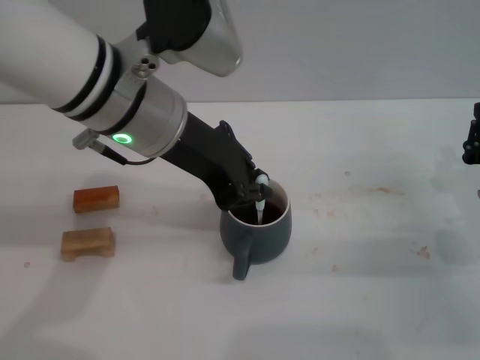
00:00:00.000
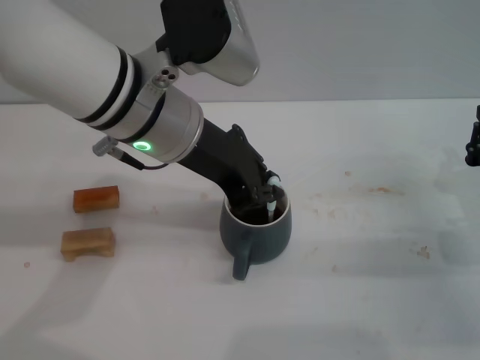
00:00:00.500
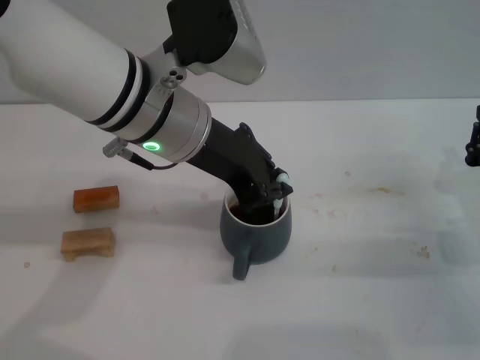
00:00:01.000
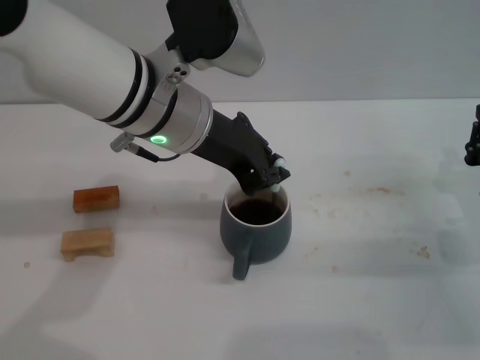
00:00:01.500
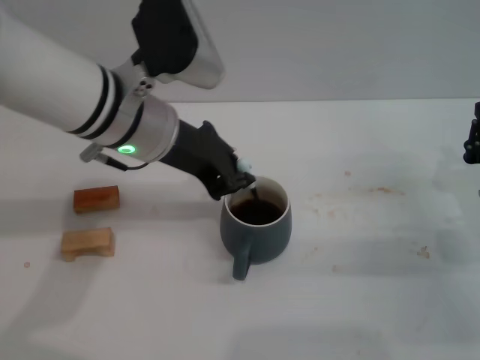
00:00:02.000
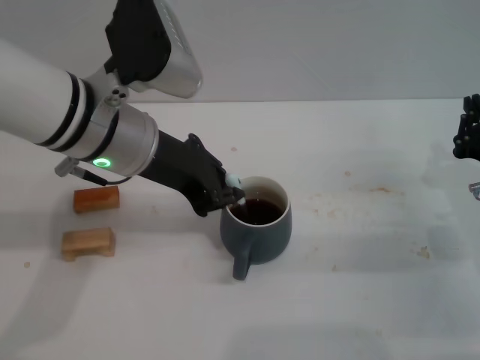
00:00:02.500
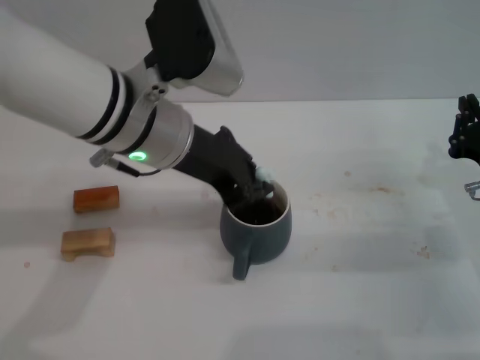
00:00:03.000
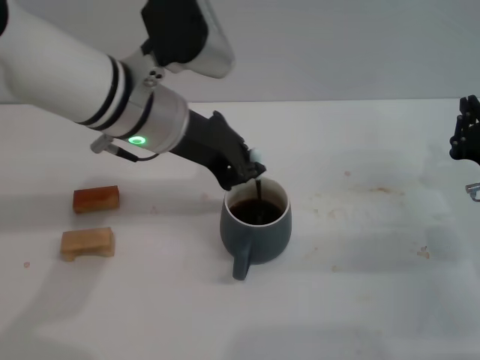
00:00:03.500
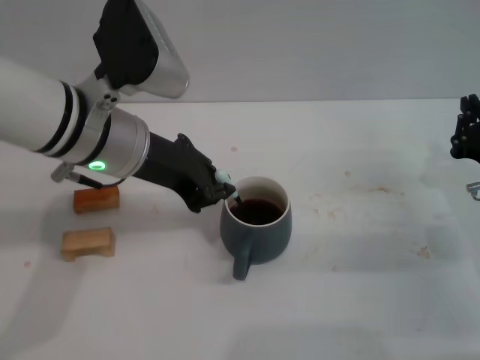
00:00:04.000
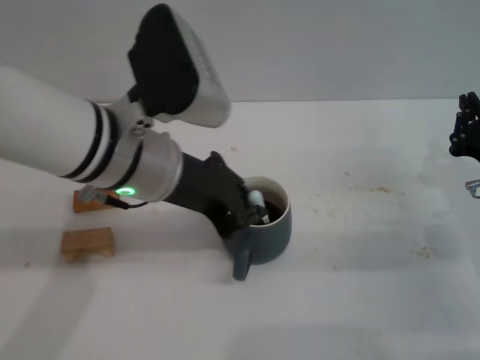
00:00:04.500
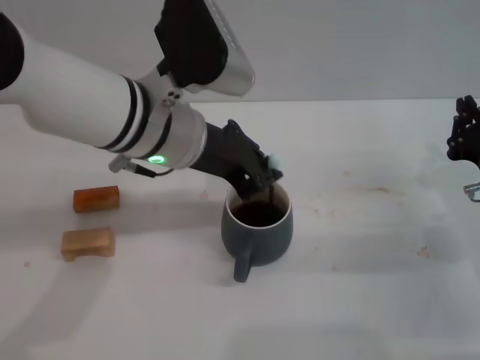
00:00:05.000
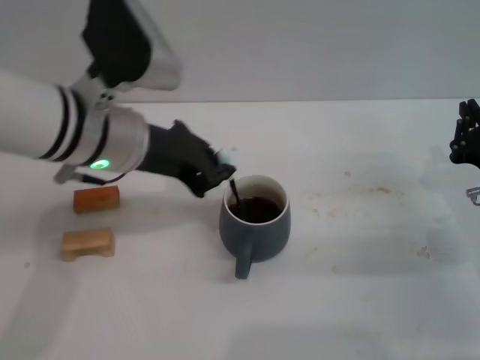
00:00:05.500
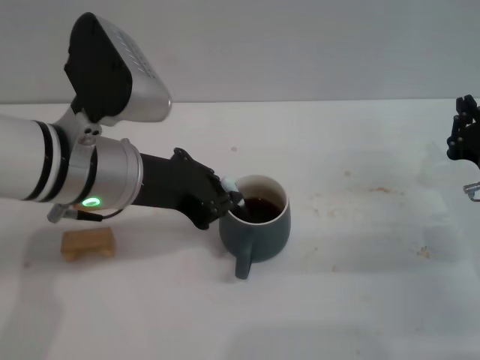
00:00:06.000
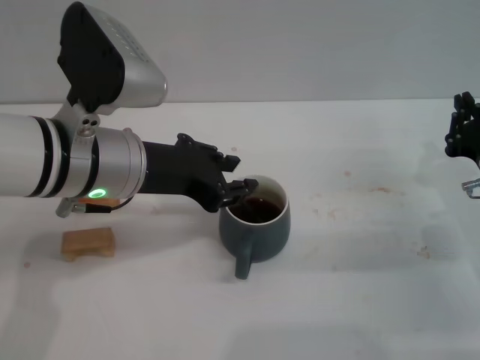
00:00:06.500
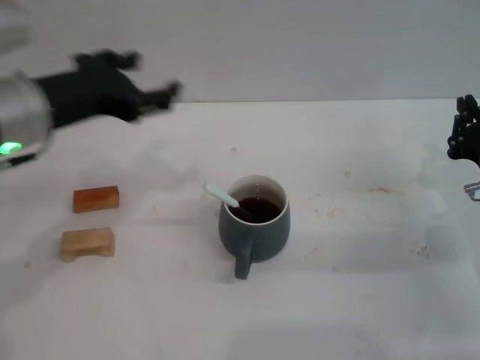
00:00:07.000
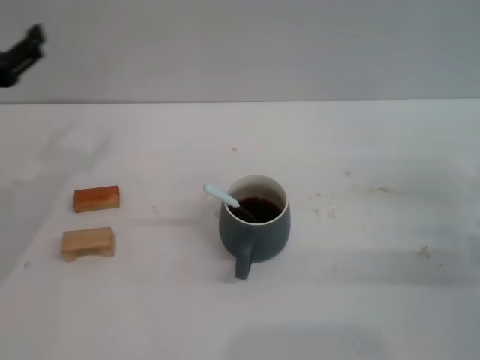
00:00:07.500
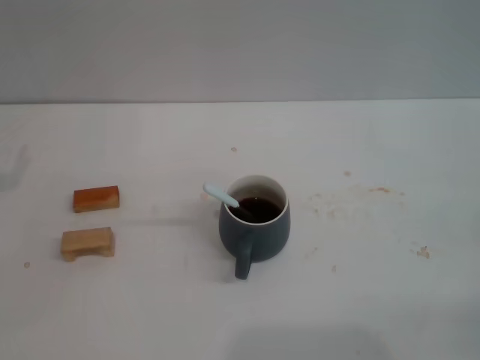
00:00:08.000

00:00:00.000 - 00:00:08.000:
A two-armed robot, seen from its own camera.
Task of the whole recording: Move the grey cup to the center, lift the blue spoon, stir it three times in the cup, and put the spoon into the cup.
Step, 00:00:00.000 - 00:00:06.500: Stir the coffee in the cup with the left gripper.
00:00:00.000 - 00:00:02.000: The left gripper shifts by about 5 cm.
00:00:02.000 - 00:00:04.000: The grippers make only small movements.
00:00:04.000 - 00:00:06.000: The left gripper changes place by approximately 5 cm.
00:00:06.000 - 00:00:08.000: The left gripper heads to the left, covering about 20 cm, and opens; the right gripper moves to the right and backward, approximately 15 cm.

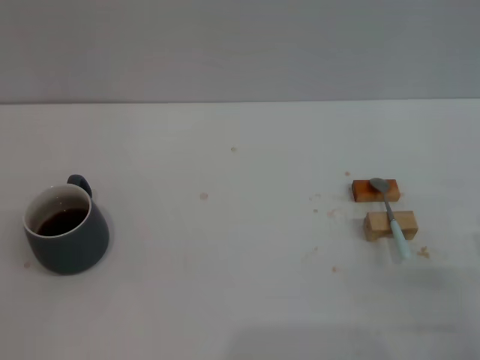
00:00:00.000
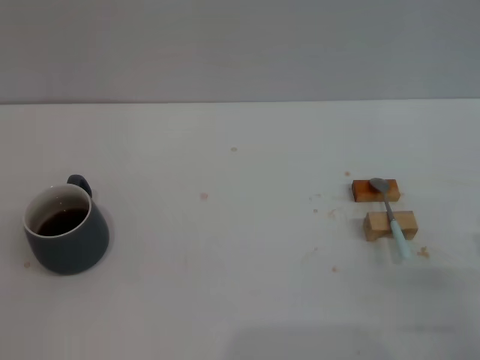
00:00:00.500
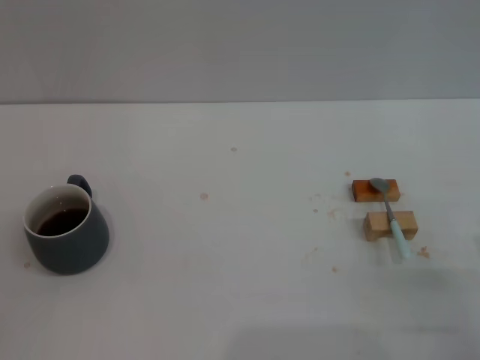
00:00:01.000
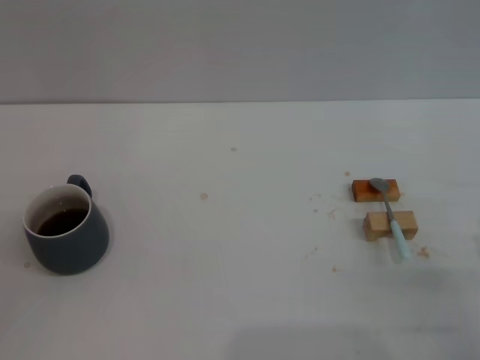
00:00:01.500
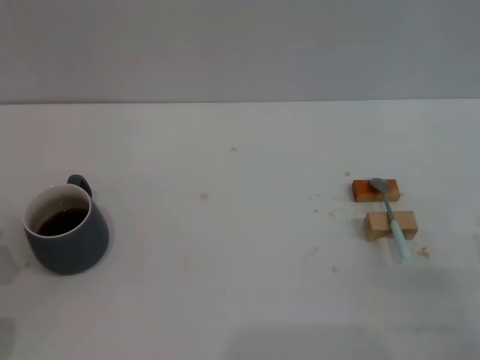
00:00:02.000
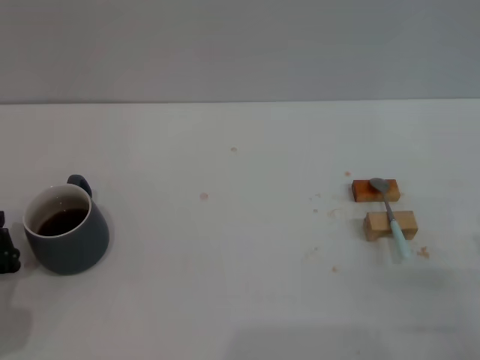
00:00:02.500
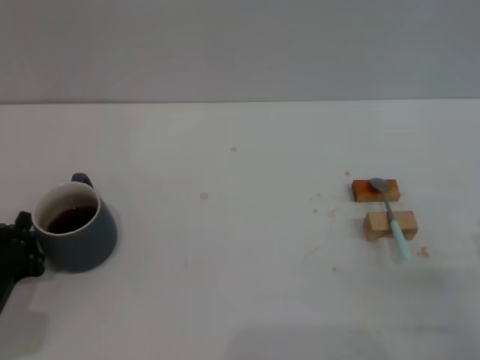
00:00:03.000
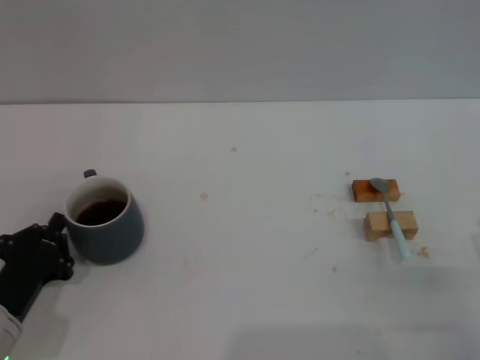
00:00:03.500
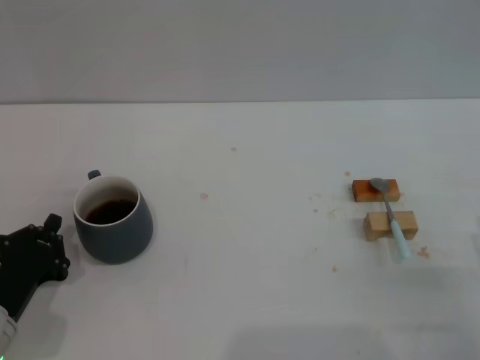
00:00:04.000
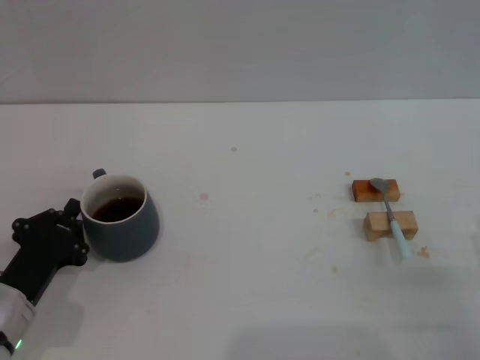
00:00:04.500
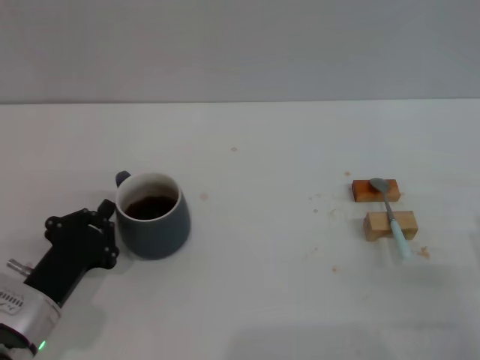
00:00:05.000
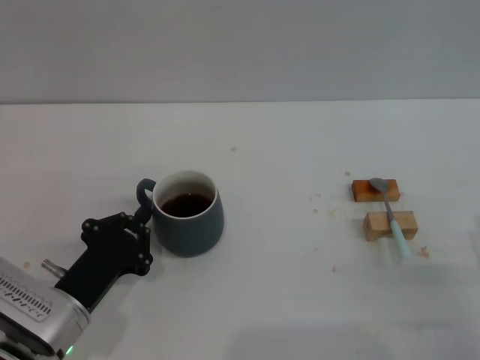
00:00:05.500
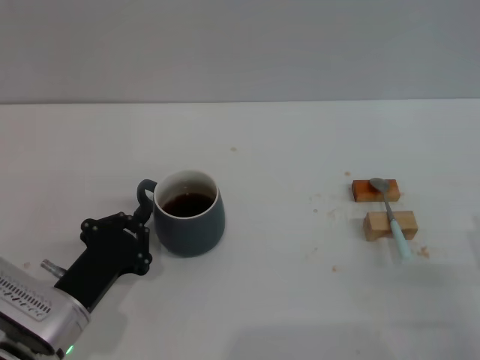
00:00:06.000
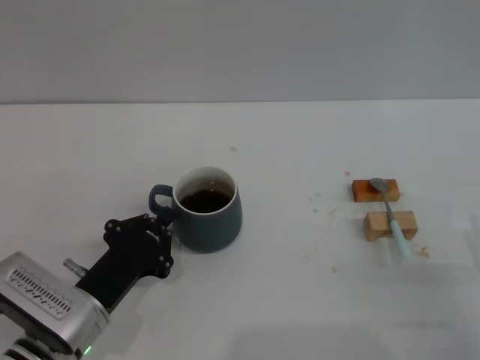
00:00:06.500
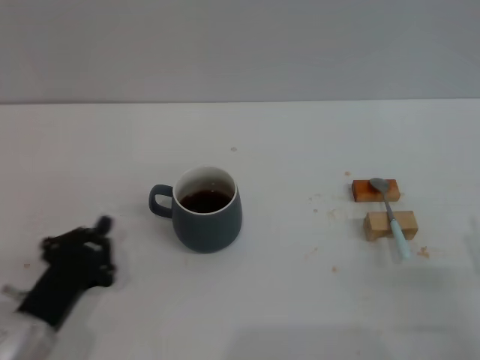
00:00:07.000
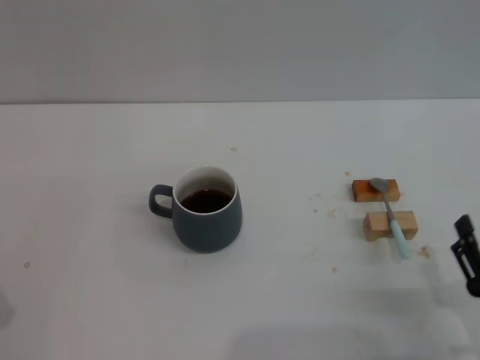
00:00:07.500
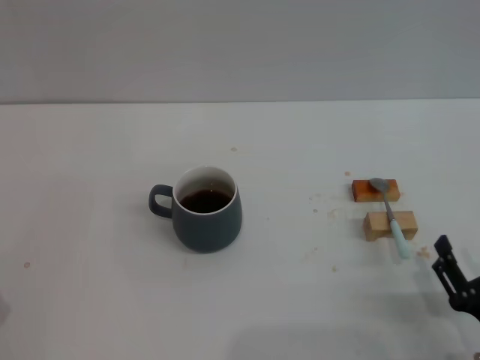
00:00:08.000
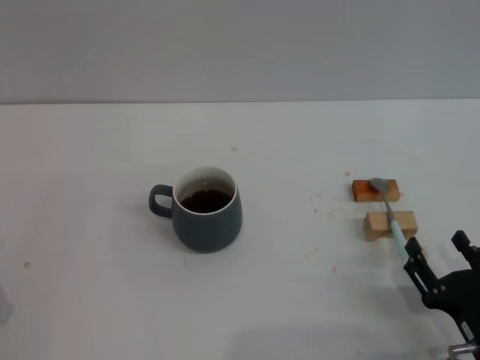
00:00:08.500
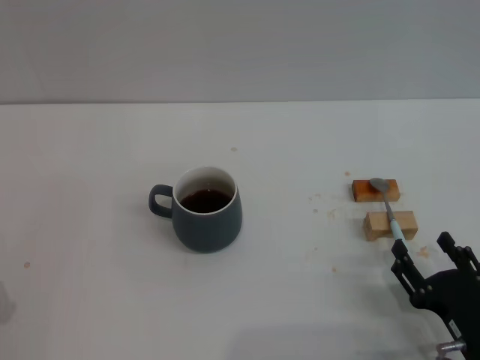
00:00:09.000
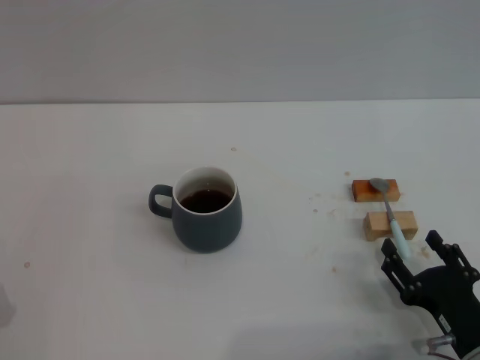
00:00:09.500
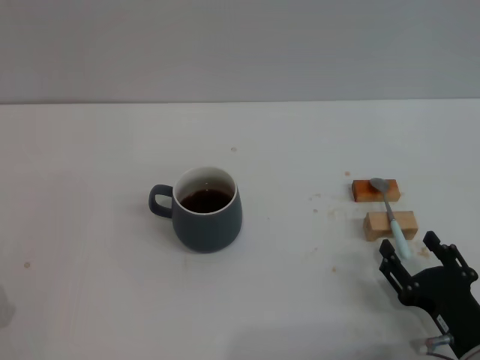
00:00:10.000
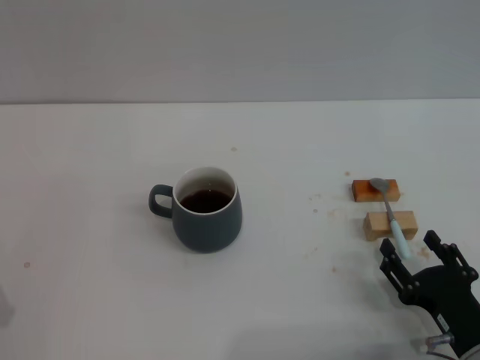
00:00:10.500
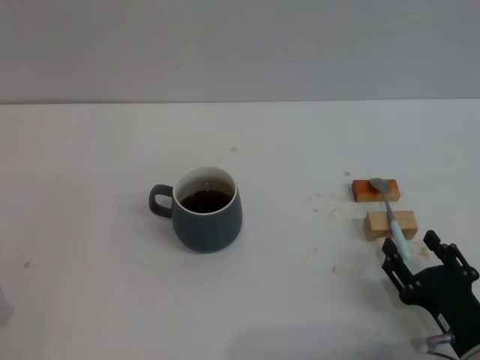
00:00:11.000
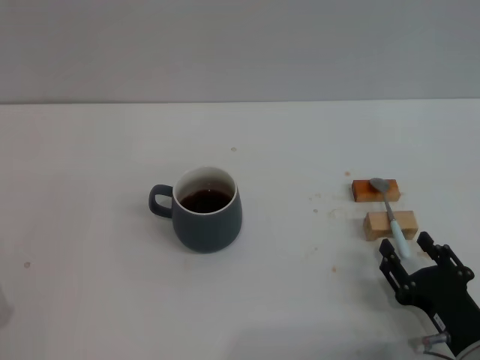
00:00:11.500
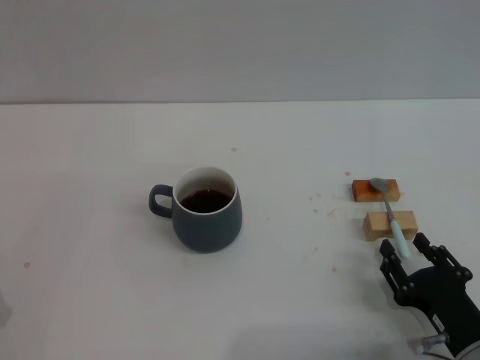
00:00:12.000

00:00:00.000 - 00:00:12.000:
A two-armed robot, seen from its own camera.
Task of the whole recording: Move the grey cup to the center, lift the blue spoon, stir it three times in the cup, and put the spoon into the cup.
Step, 00:00:00.000 - 00:00:07.000: Move the cup with coffee to the center of view with the left gripper.
00:00:02.000 - 00:00:04.000: The grippers move only a little.
00:00:04.000 - 00:00:06.000: The left gripper goes about 5 cm to the right.
00:00:06.000 - 00:00:08.000: The left gripper goes roughly 15 cm to the left and backward. The right gripper moves roughly 5 cm.
00:00:08.000 - 00:00:10.000: The grippers move only a little.
00:00:10.000 - 00:00:12.000: Both grippers stay about where they are.

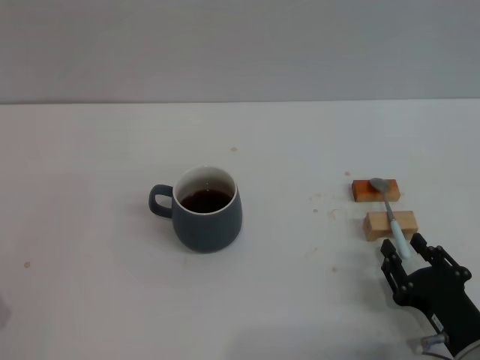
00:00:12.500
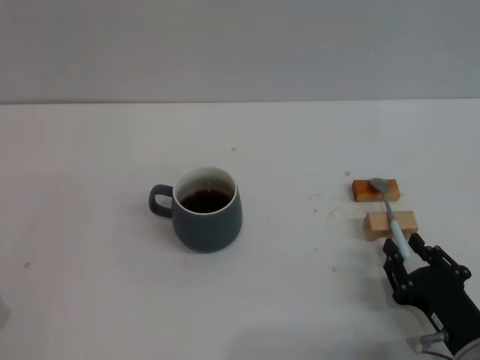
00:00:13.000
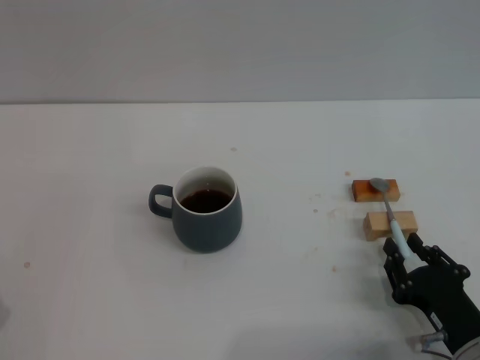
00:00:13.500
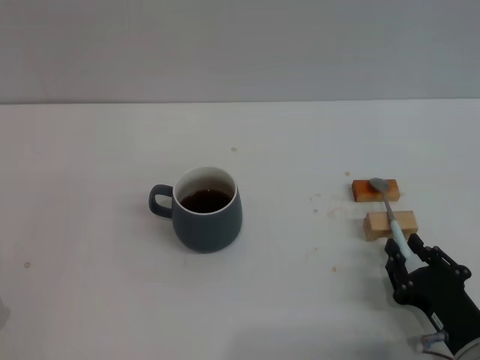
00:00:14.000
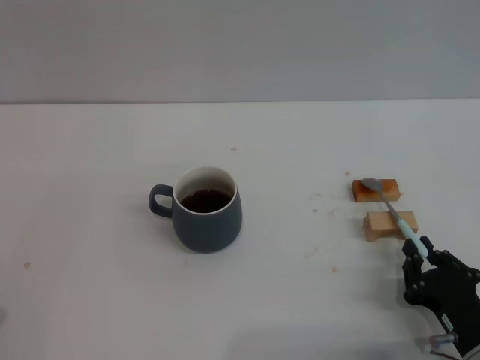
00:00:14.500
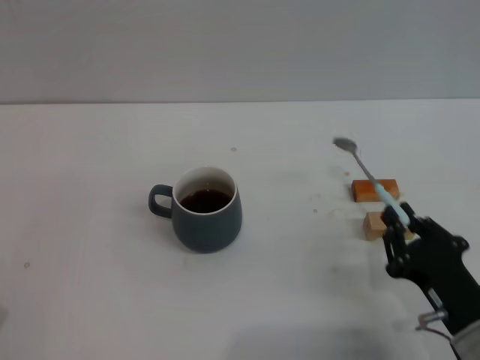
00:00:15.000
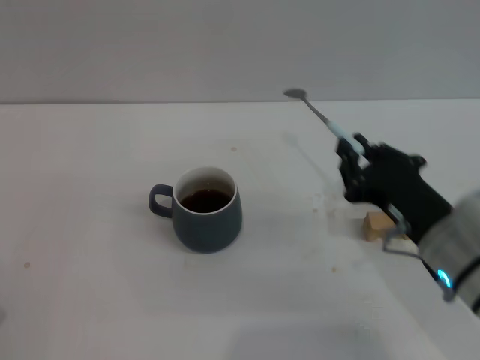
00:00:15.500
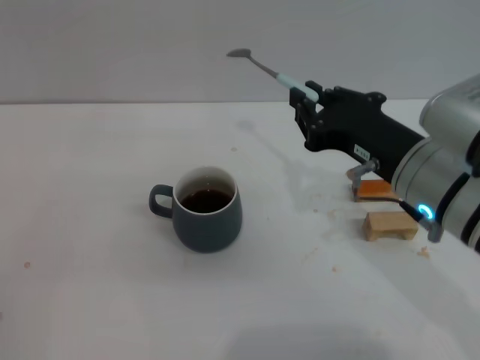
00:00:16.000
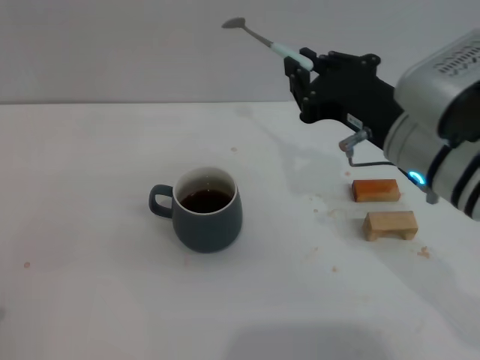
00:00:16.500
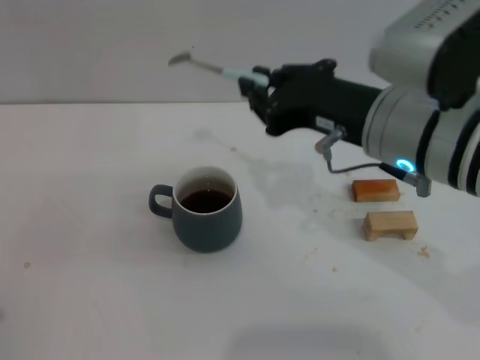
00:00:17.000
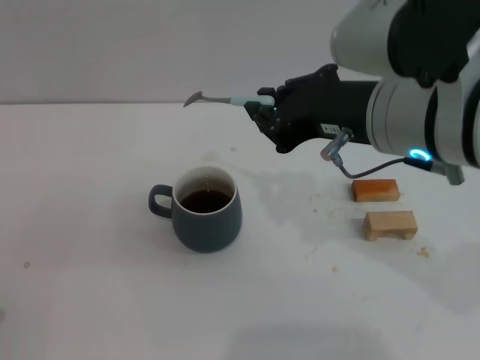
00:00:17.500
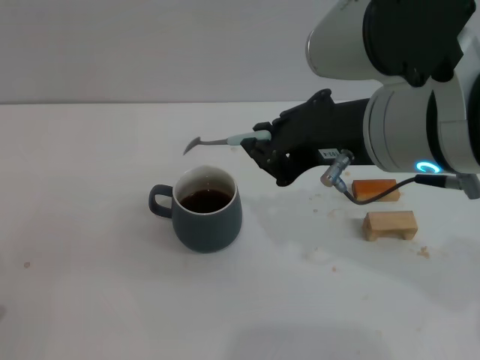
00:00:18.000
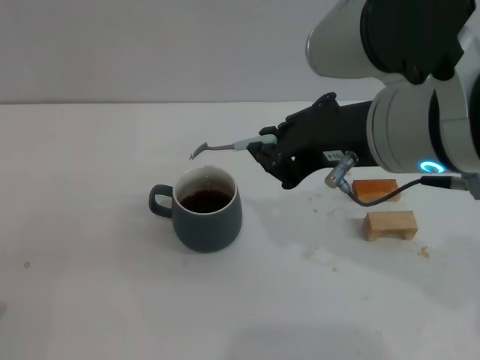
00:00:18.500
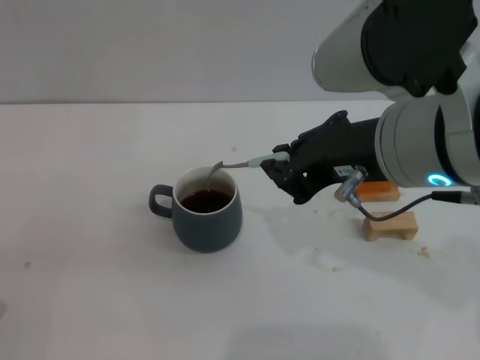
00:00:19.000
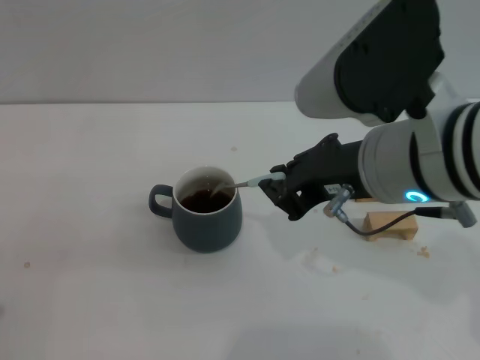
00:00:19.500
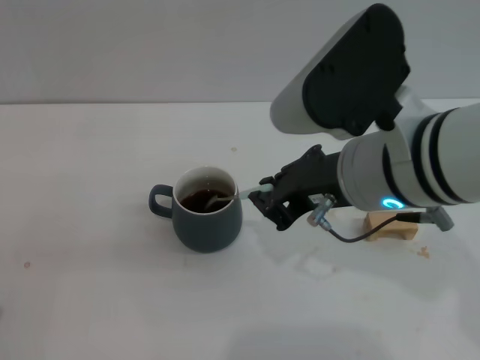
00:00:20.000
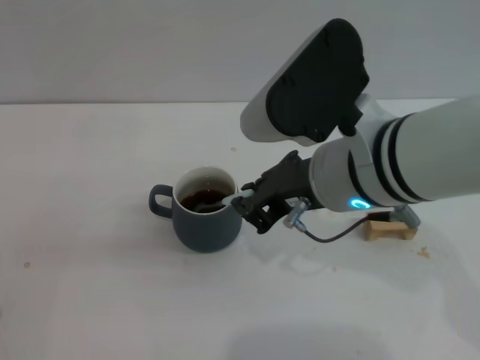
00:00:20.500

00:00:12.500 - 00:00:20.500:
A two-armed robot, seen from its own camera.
Task of the whole recording: Move the grey cup to the center, lift the blue spoon, stir it three times in the cup, and put the spoon into the cup.
Step, 00:00:12.500 - 00:00:15.500: Pick up the spoon with the right gripper.
00:00:12.500 - 00:00:14.500: The right gripper closes its fingers.
00:00:14.500 - 00:00:16.500: The right gripper goes approximately 25 cm upward, forward and to the left.
00:00:16.500 - 00:00:18.500: The right gripper moves upward, approximately 10 cm.
00:00:18.500 - 00:00:20.500: The right gripper goes some 5 cm downward.
